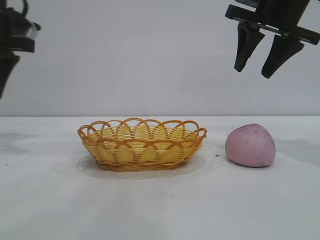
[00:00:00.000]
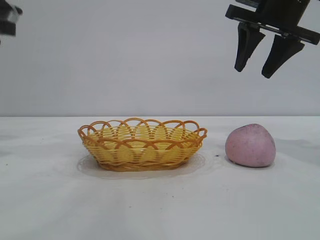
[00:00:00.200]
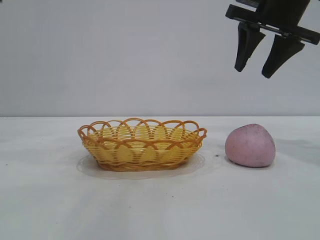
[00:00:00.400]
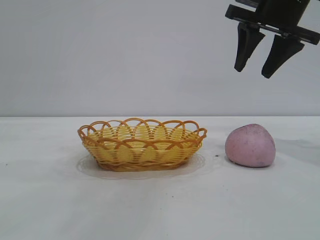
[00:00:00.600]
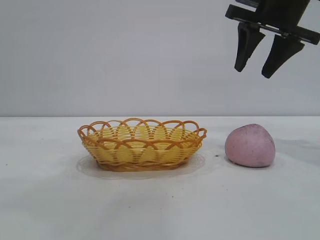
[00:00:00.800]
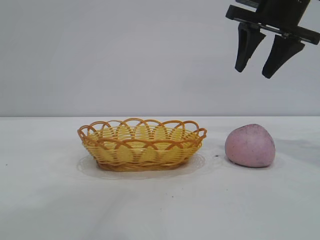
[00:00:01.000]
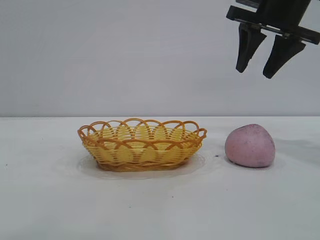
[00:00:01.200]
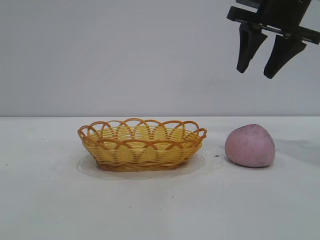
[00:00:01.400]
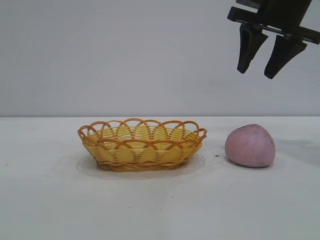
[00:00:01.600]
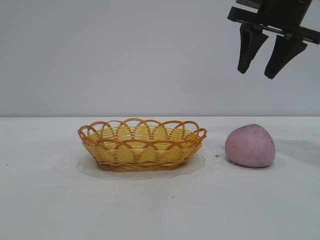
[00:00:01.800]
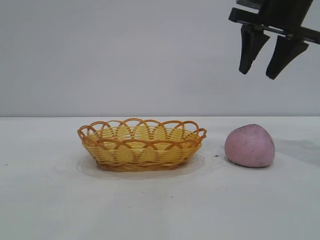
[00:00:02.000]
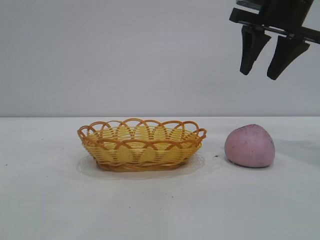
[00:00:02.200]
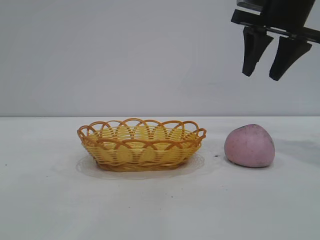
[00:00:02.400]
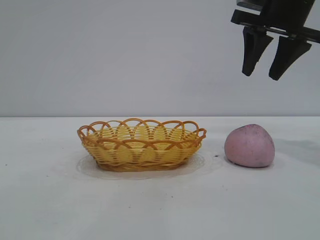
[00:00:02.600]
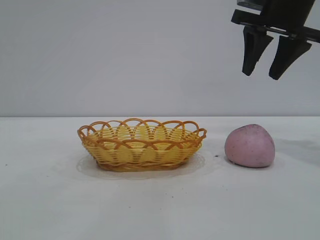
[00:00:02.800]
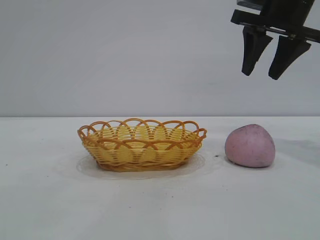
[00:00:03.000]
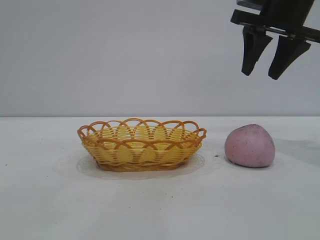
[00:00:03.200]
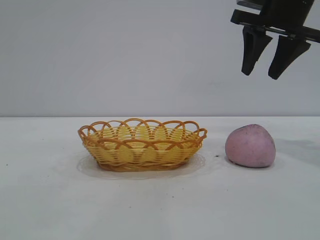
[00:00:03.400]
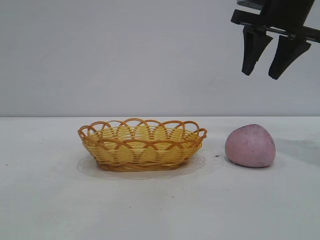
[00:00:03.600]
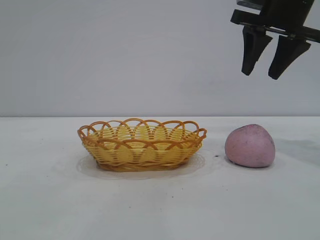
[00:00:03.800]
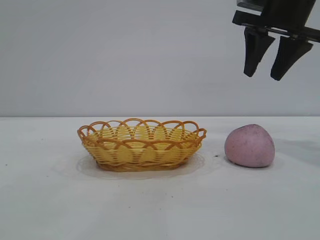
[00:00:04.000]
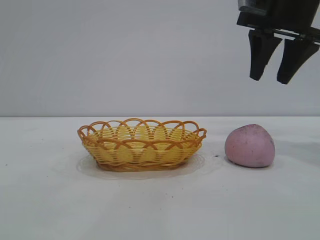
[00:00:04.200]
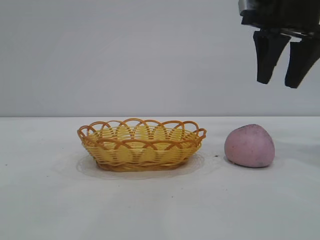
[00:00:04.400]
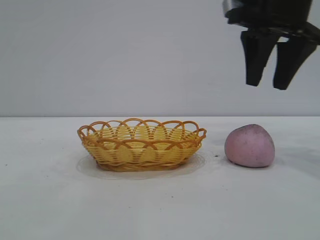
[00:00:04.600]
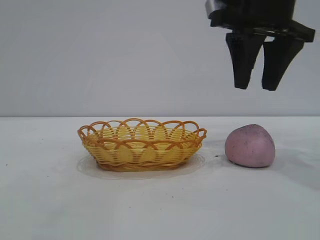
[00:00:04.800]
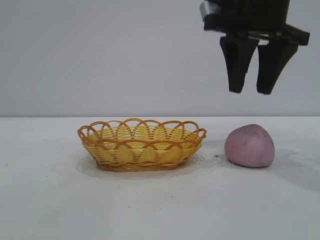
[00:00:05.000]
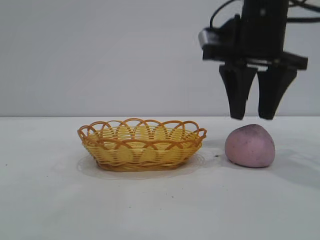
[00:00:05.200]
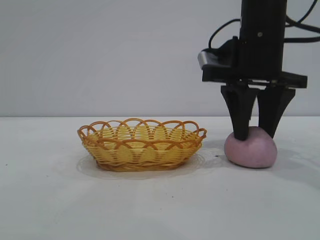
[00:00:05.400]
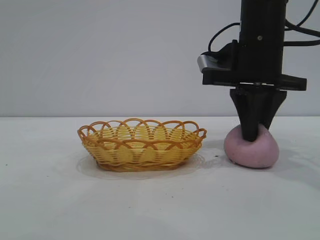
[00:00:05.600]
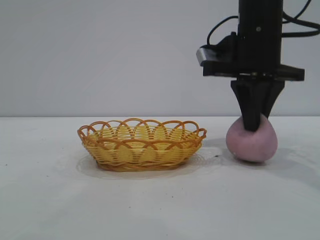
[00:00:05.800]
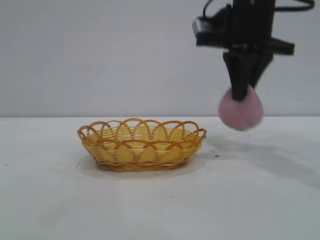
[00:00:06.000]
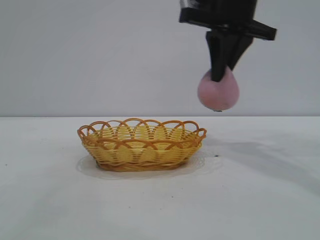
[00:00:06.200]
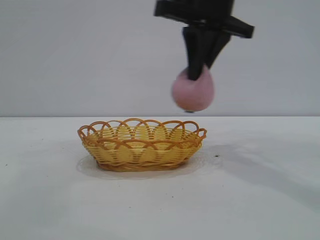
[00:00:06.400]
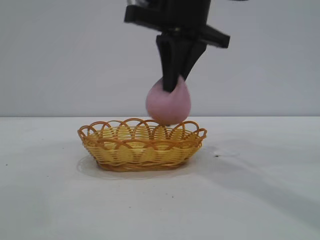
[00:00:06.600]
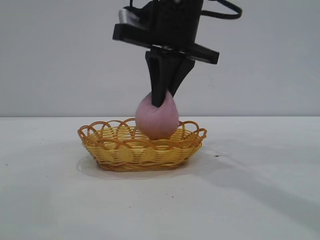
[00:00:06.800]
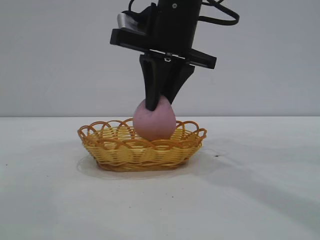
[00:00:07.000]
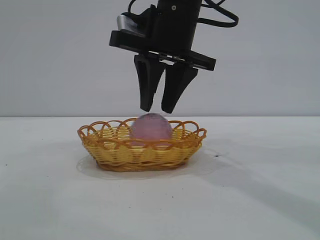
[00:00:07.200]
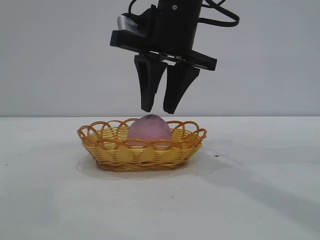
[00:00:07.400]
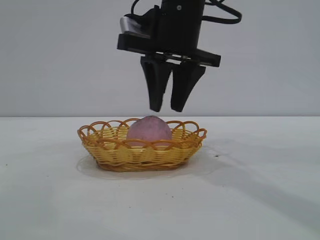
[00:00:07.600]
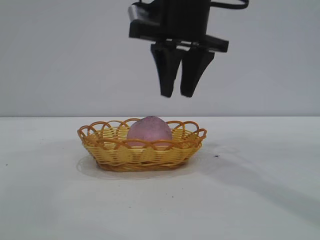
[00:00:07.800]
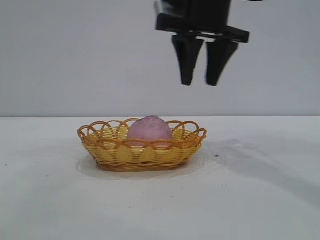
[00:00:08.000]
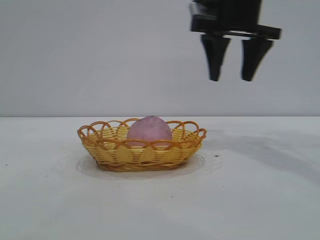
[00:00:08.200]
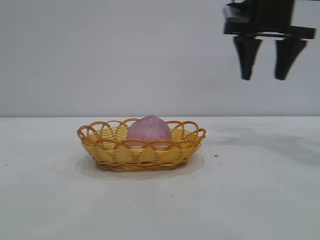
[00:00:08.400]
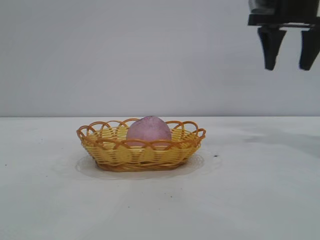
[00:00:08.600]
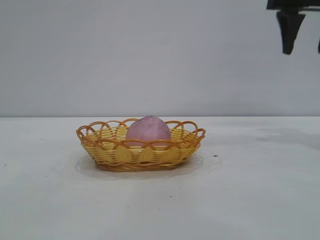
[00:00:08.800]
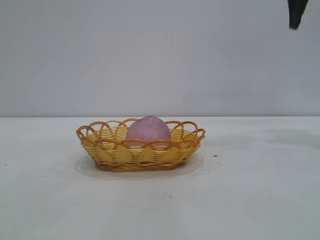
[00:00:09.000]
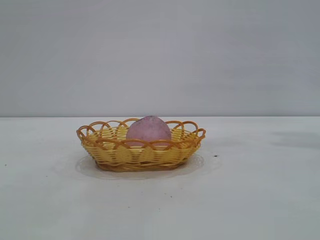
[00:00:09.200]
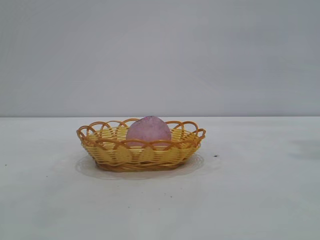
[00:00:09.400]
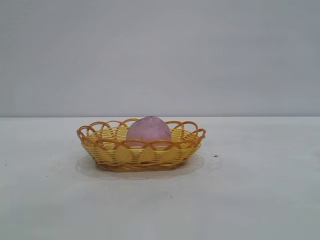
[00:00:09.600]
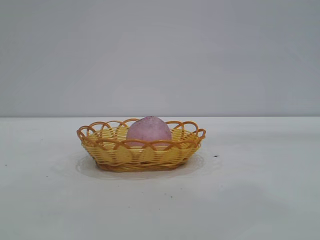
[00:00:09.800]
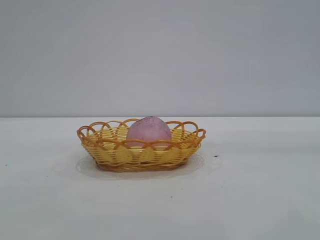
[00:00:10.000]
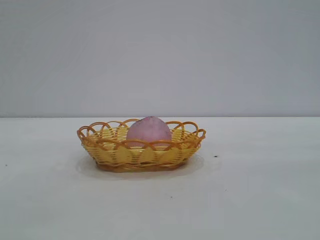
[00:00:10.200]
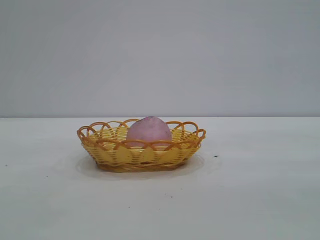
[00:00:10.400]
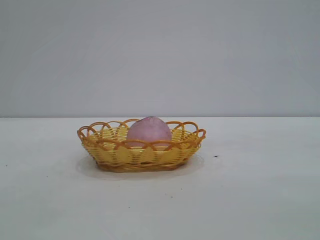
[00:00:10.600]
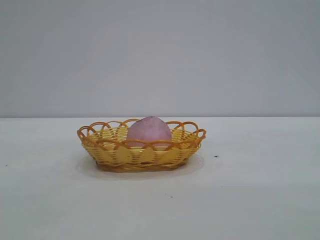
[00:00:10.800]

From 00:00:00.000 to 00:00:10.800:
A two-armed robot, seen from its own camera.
Task of the whole recording: pick up the peach and put it into the basket.
Step, from 00:00:00.000 to 00:00:06.000: Pick up the peach.
Step, from 00:00:06.200 to 00:00:08.000: place the peach into the basket.

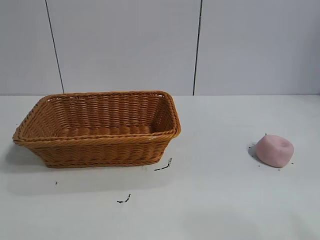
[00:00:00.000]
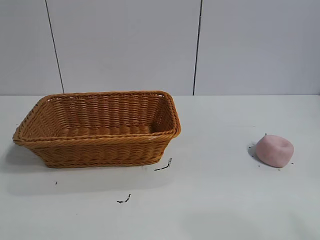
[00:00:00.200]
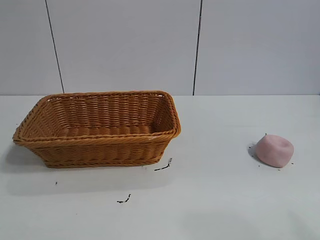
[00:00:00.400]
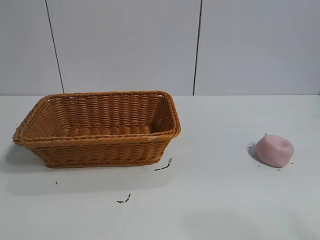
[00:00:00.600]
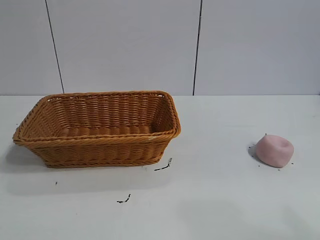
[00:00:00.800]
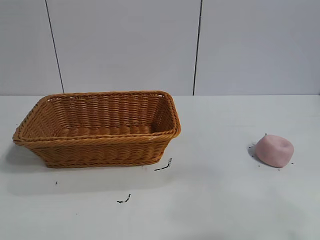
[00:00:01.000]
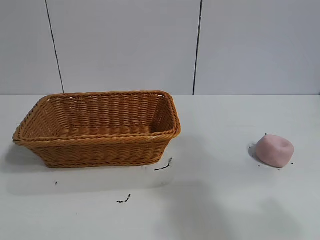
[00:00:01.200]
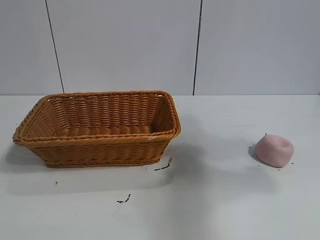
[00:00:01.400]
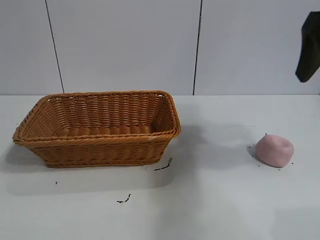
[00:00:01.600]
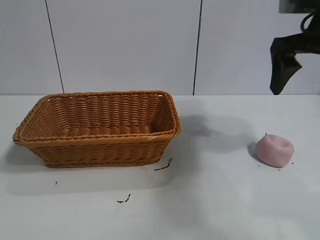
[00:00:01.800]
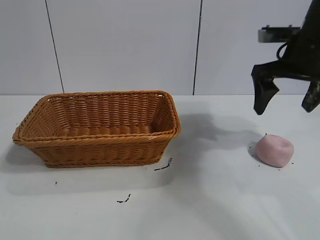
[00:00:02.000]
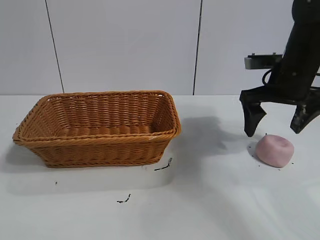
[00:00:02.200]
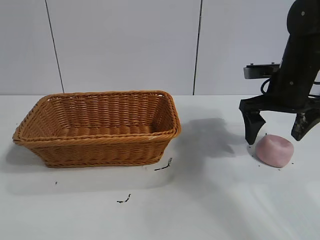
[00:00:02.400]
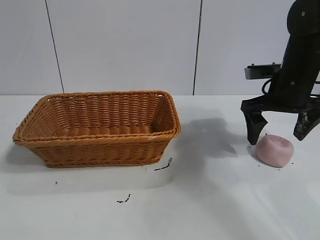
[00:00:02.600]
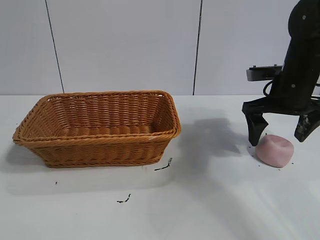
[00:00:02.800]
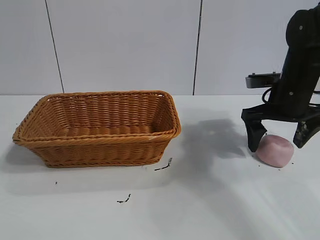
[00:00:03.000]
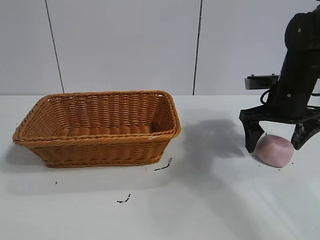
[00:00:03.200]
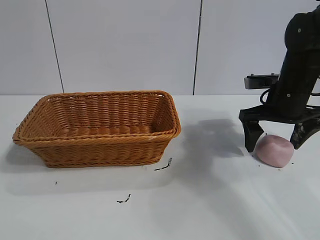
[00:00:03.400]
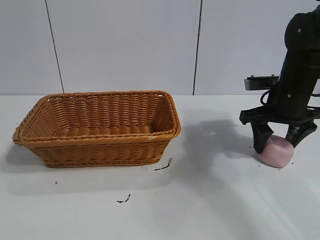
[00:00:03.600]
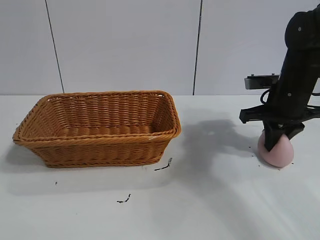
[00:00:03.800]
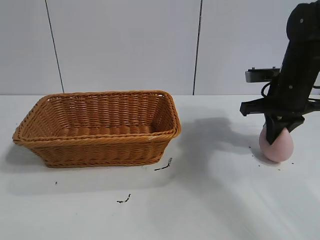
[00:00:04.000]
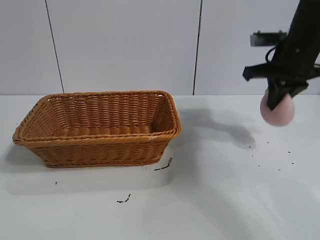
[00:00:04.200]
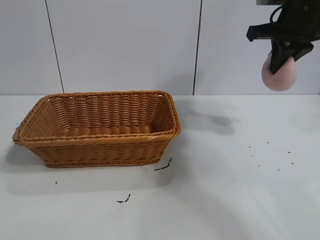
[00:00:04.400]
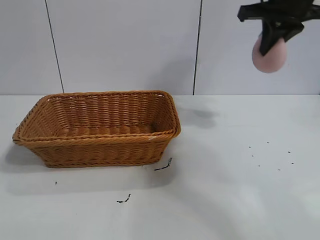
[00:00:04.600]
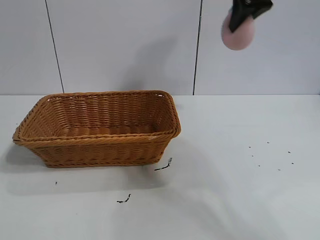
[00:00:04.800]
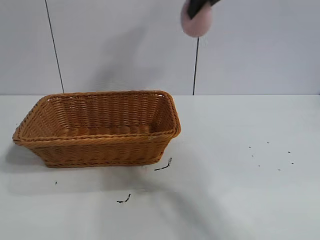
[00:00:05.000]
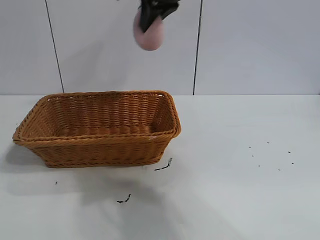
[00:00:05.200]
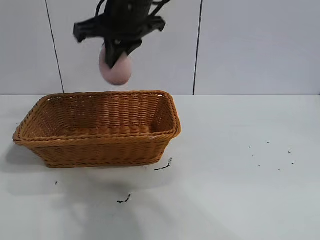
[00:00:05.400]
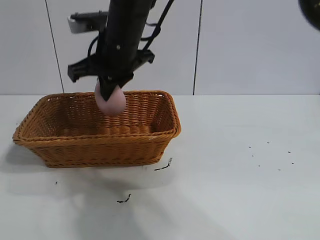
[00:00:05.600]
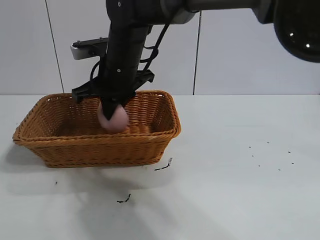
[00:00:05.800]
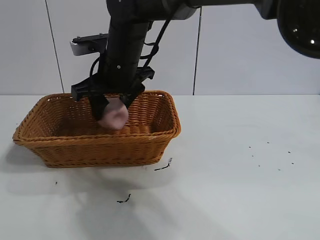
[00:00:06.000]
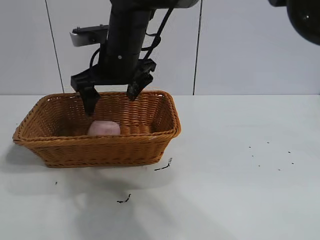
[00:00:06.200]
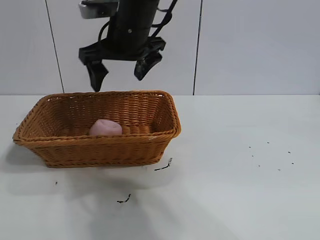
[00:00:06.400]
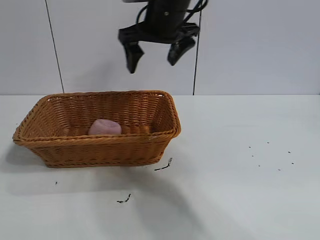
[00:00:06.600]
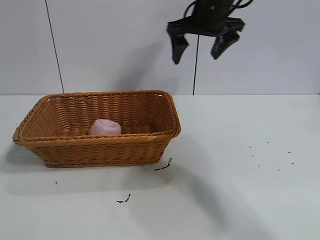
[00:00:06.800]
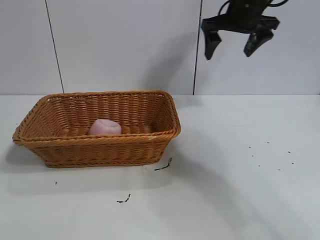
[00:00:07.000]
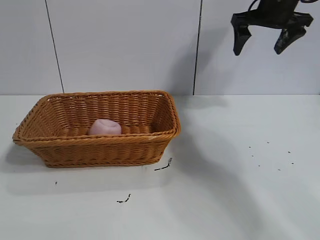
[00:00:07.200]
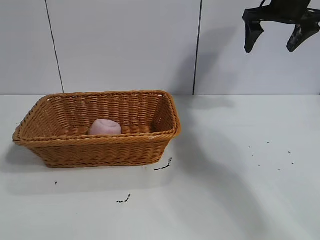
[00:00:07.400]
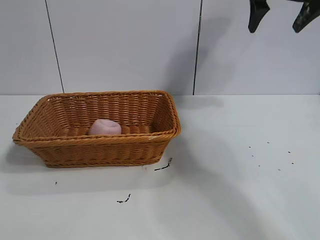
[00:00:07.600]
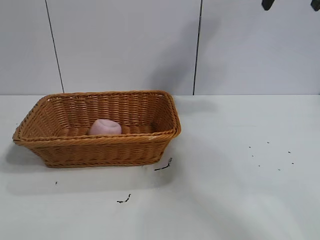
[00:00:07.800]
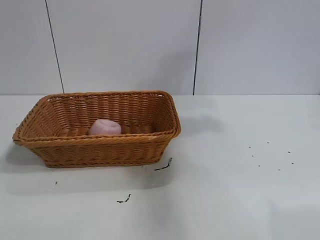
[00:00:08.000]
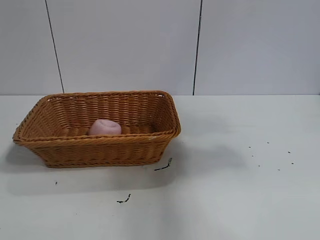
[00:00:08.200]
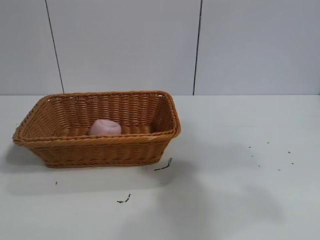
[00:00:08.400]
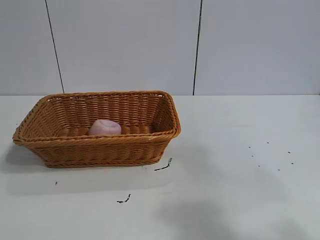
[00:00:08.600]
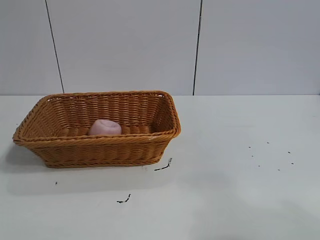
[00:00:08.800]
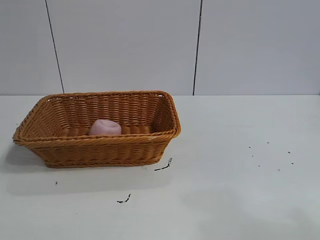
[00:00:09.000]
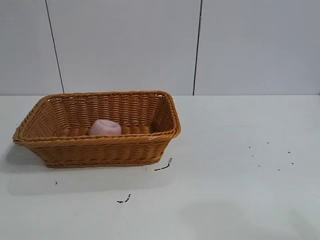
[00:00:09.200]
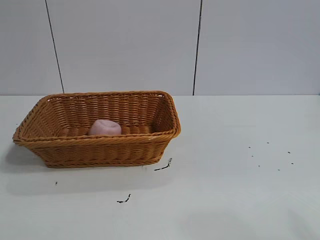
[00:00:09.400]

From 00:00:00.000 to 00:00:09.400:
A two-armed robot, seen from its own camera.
Task of the whole recording: pick up the peach and put it into the basket.
Step, from 00:00:00.000 to 00:00:03.800: Grasp the peach with right gripper.
Step, from 00:00:04.000 to 00:00:06.000: Place the peach in the basket with right gripper.
